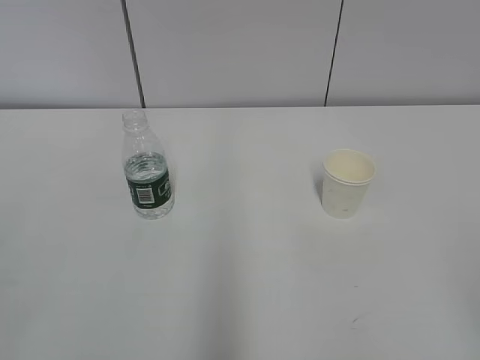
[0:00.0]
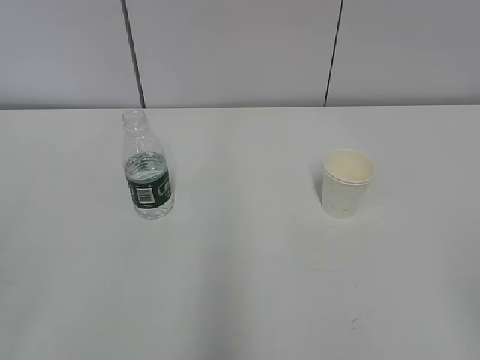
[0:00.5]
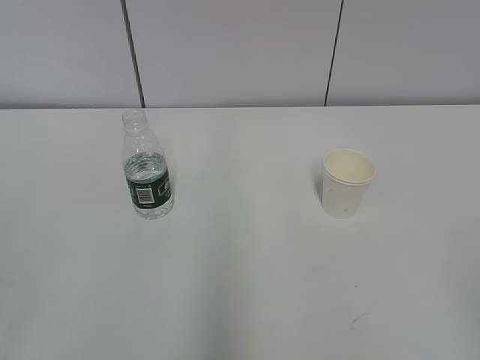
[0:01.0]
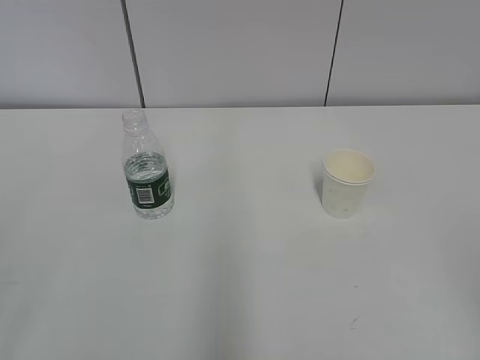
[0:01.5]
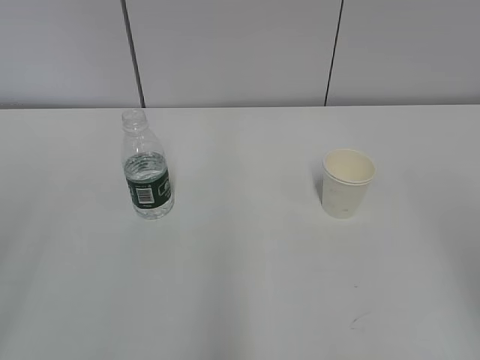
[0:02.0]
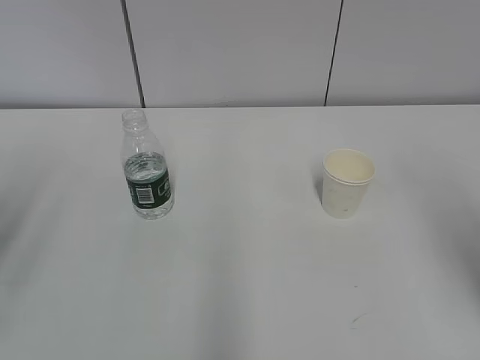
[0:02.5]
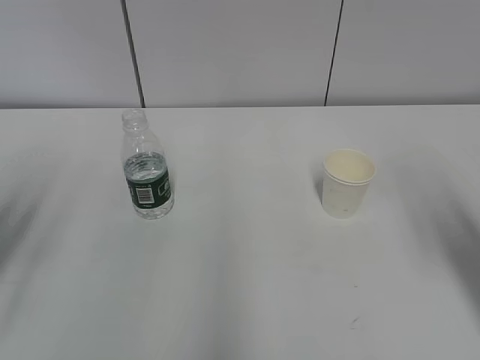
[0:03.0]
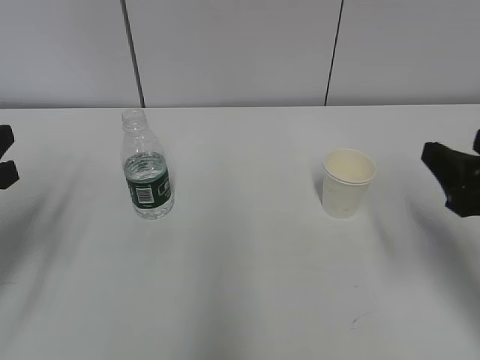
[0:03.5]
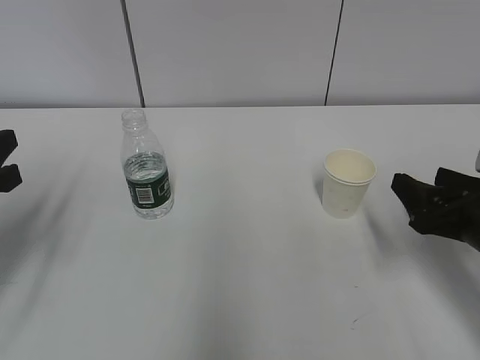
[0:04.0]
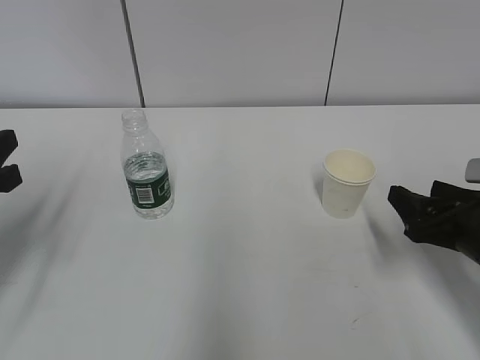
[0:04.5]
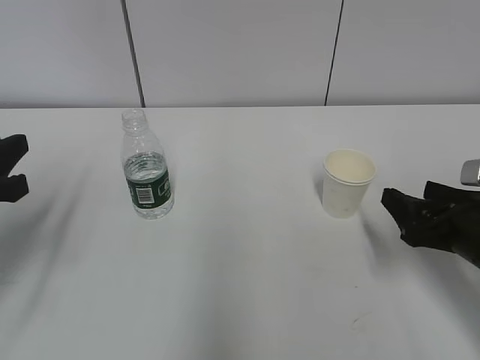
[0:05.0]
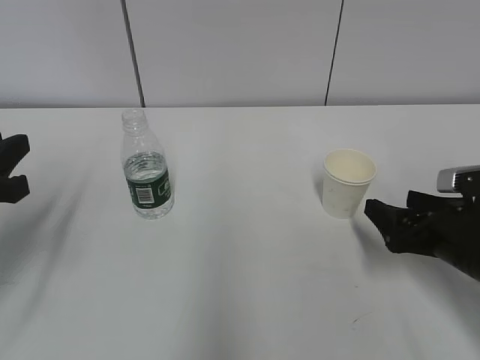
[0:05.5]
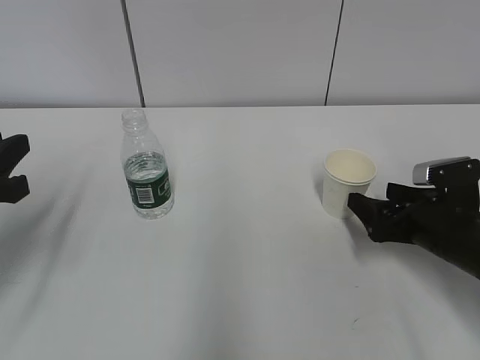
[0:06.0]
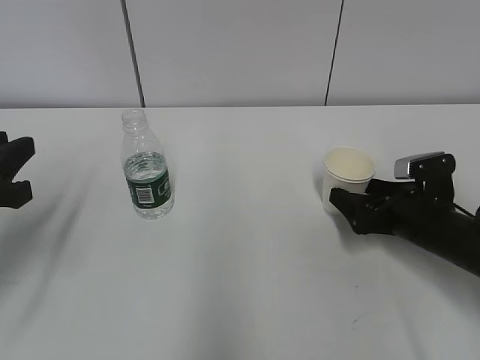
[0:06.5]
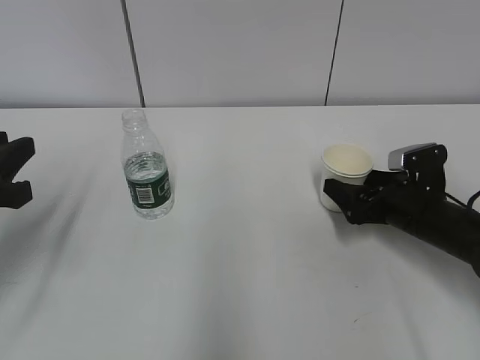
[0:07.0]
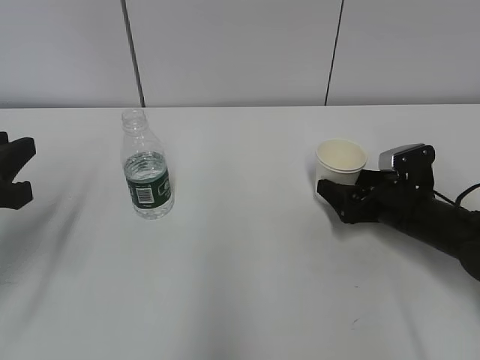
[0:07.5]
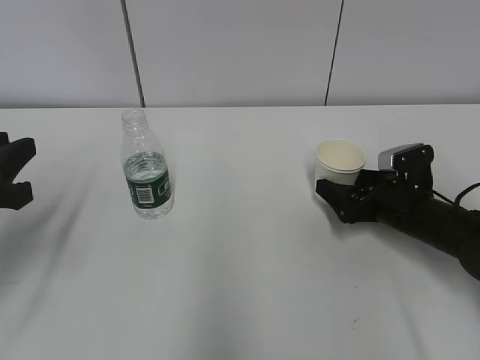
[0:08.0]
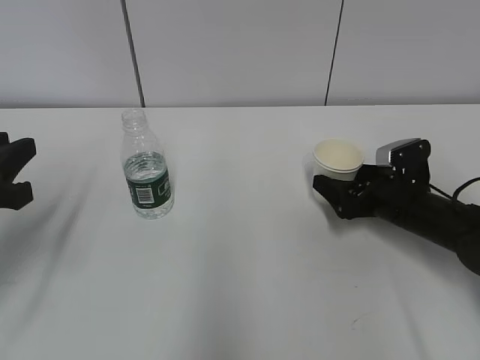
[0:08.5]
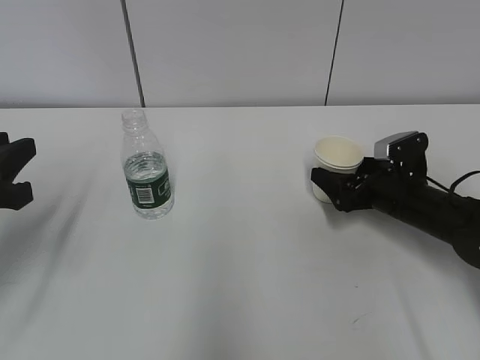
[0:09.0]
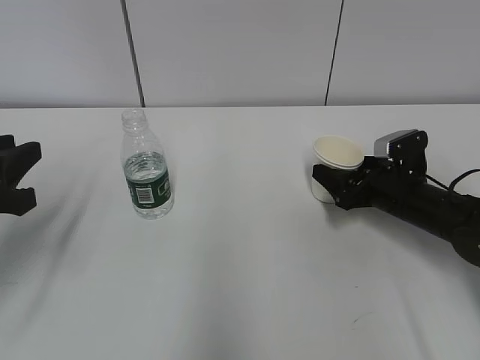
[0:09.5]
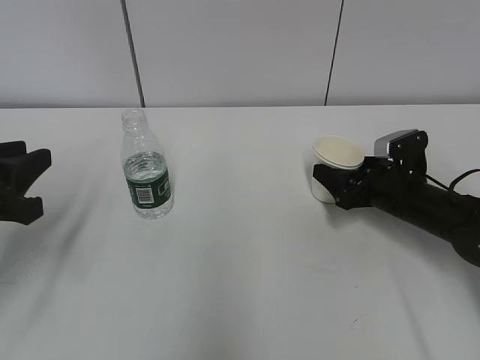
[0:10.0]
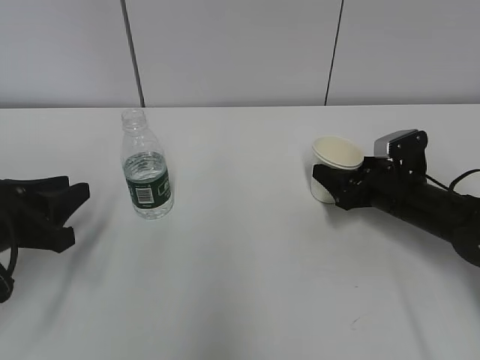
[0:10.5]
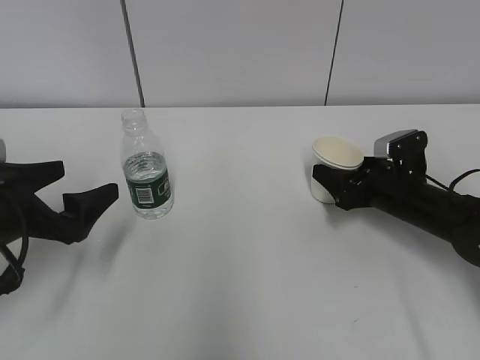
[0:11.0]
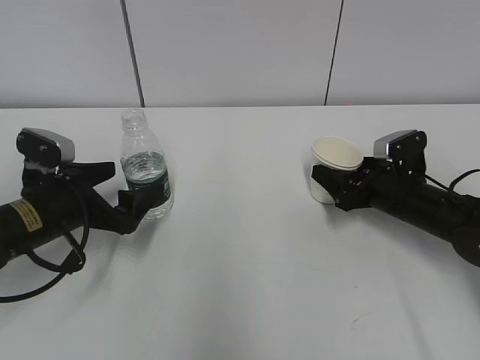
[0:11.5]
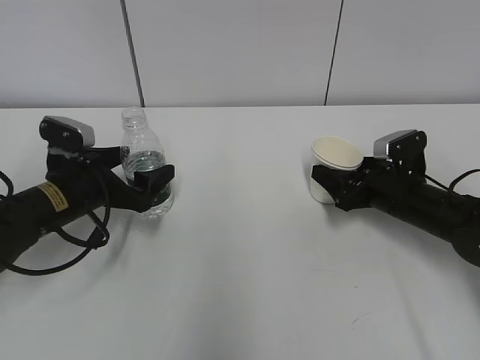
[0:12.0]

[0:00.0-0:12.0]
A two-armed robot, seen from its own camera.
Step, 0:00.0 to 0:10.5: Grab the paper cup with the right hand.
0:02.0 to 0:04.0: Both grippers travel together forward and downward, some 25 cm.
0:04.0 to 0:06.0: The right gripper heads downward and forward, covering approximately 10 cm, and opens its fingers.
0:06.0 to 0:08.0: The right gripper heads forward, covering approximately 5 cm.
0:08.0 to 0:10.0: The right gripper closes up.
0:10.0 to 0:12.0: The left gripper heads forward, downward and to the right, covering roughly 15 cm, and opens up.

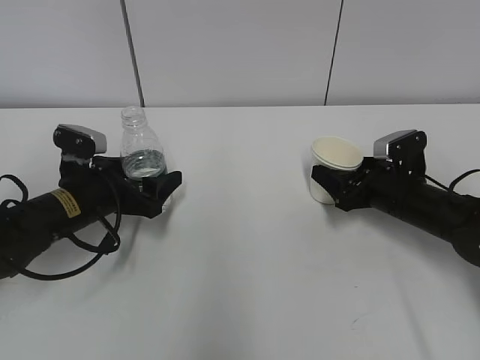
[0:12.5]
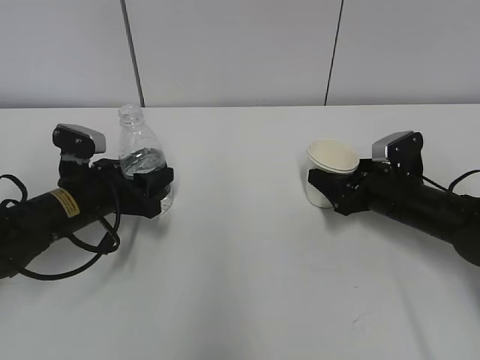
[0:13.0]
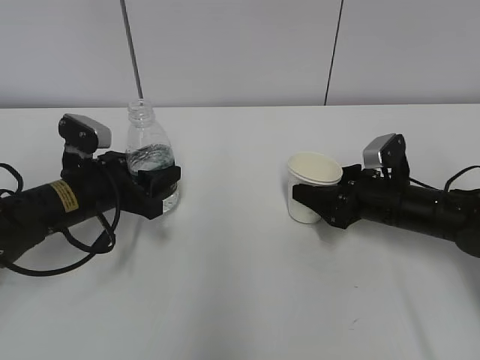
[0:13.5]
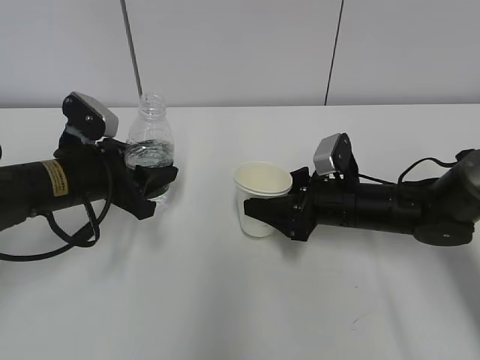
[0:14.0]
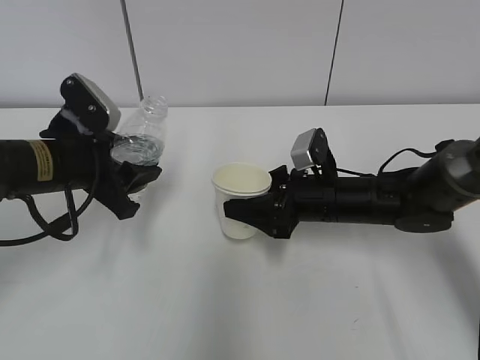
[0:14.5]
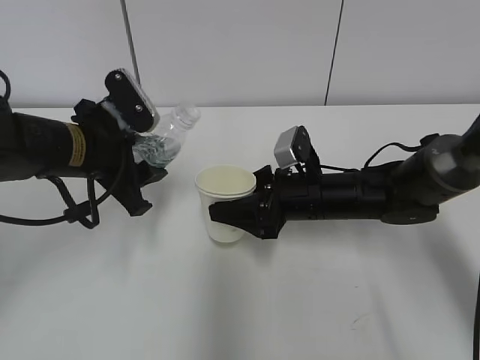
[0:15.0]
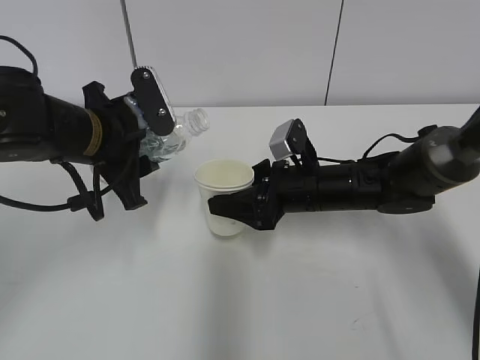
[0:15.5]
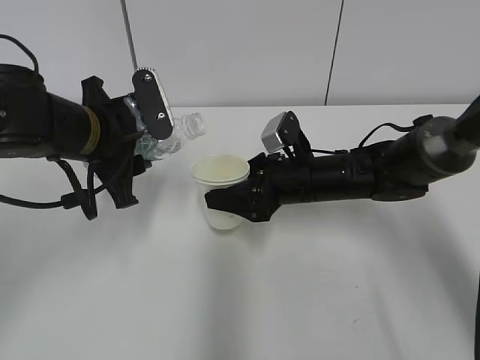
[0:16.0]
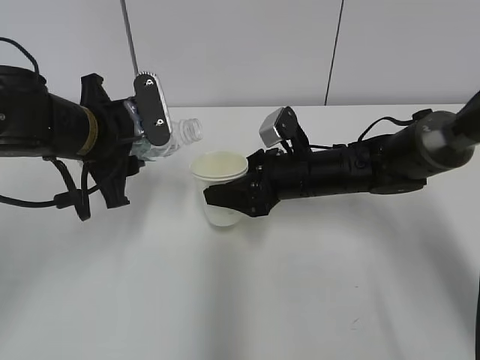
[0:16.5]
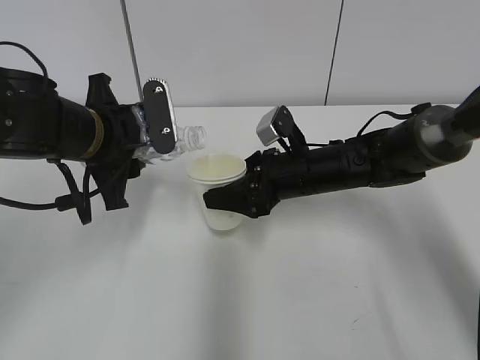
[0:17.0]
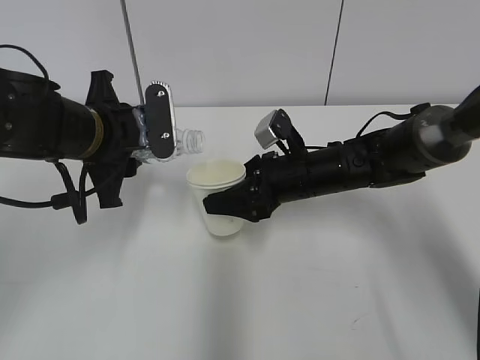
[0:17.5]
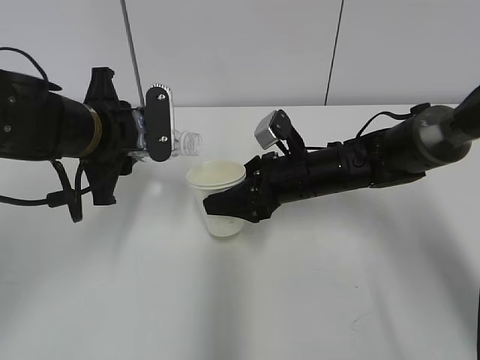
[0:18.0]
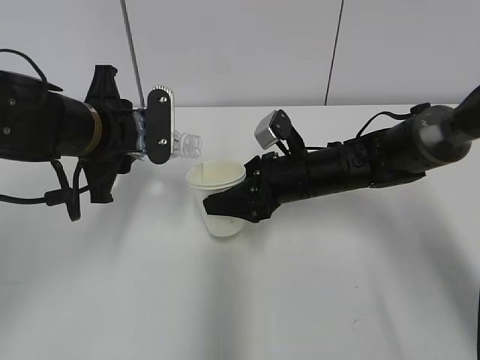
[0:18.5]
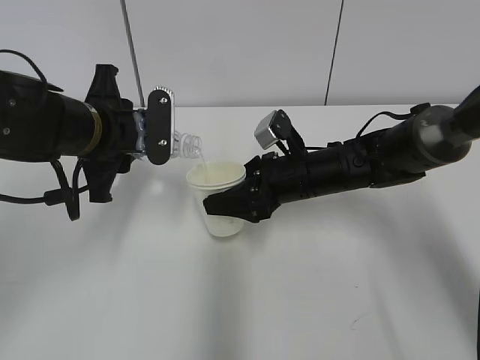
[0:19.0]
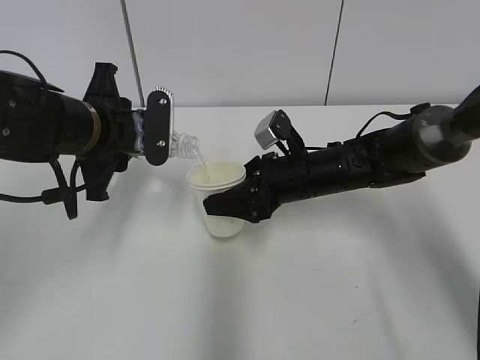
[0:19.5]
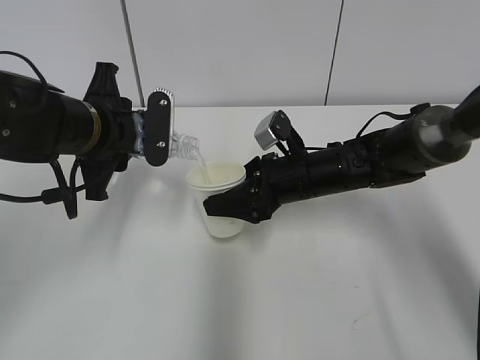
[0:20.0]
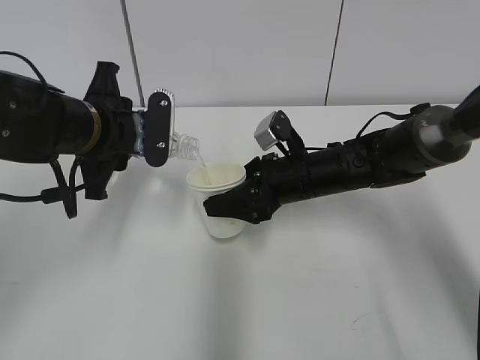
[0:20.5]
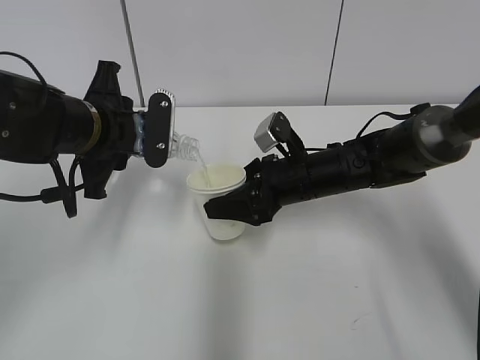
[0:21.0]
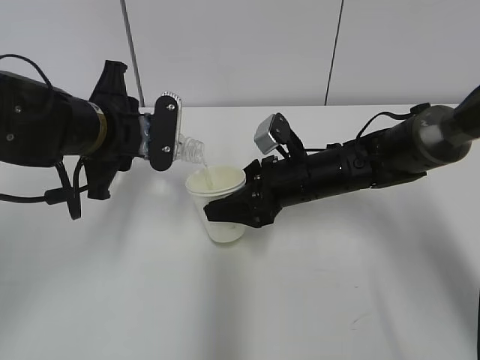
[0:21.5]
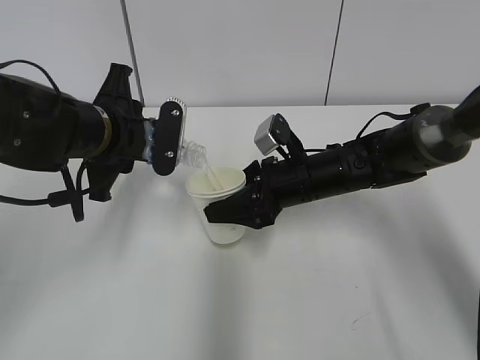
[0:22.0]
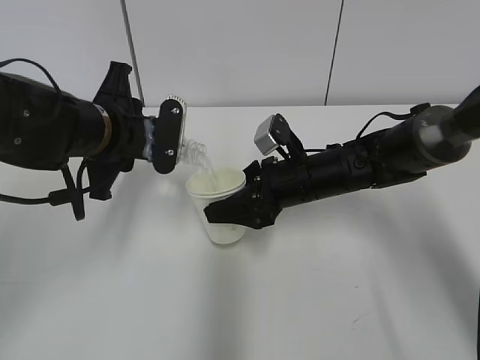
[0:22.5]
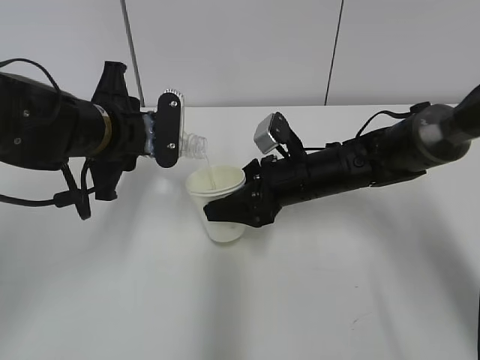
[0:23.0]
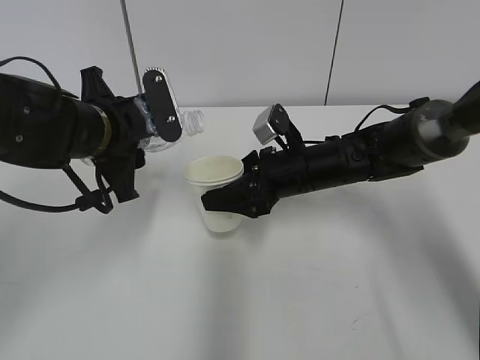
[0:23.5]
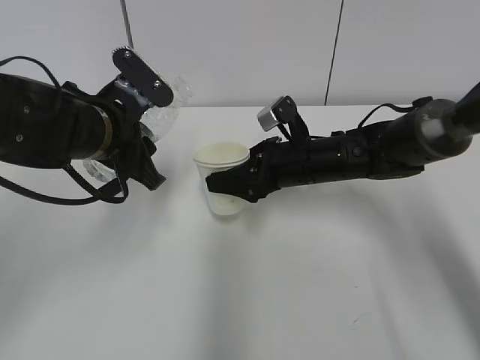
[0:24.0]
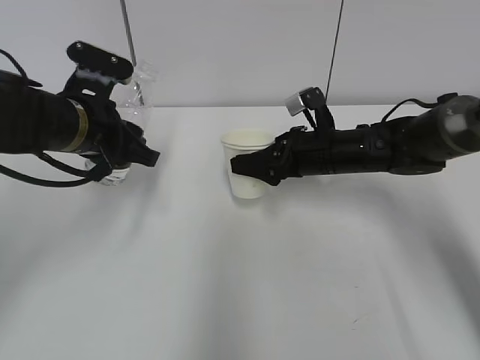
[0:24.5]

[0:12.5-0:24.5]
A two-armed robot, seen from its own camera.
Step, 0:12.5 to 0:15.0: Lift the paper cup with the right hand.
Step, 0:15.5 to 0:19.0: Fill water with the right hand.
Step, 0:15.5 to 0:19.0: Pour water with the left hand.
Step, 0:19.5 to 0:21.5: Collect water with the left hand.
0:12.5 to 0:14.5: The left gripper moves upward, roughly 10 cm, and closes; the right gripper is displaced to the left by approximately 10 cm.
0:14.5 to 0:16.5: The left gripper moves approximately 5 cm.
0:16.5 to 0:18.5: The grippers make only small movements.
0:18.5 to 0:20.5: Neither gripper changes place.
0:20.5 to 0:22.5: There are only small adjustments of the grippers.
0:22.5 to 0:24.5: The right gripper ends up approximately 5 cm from where it was.

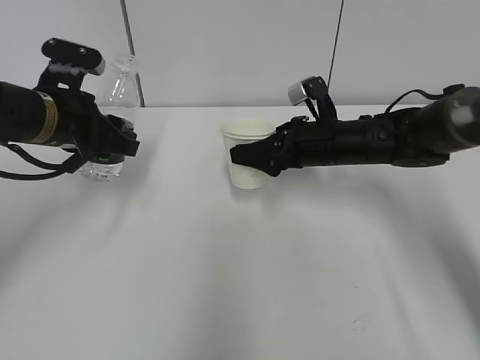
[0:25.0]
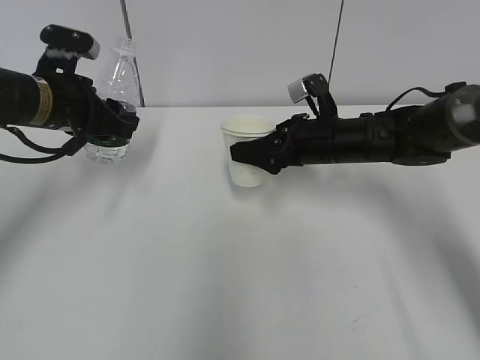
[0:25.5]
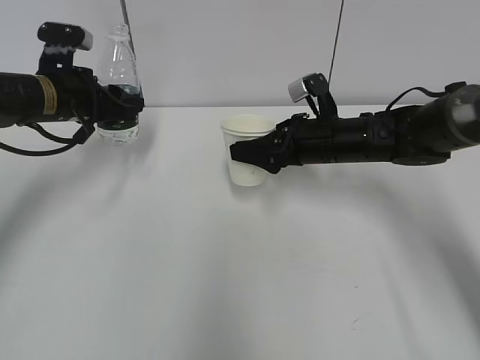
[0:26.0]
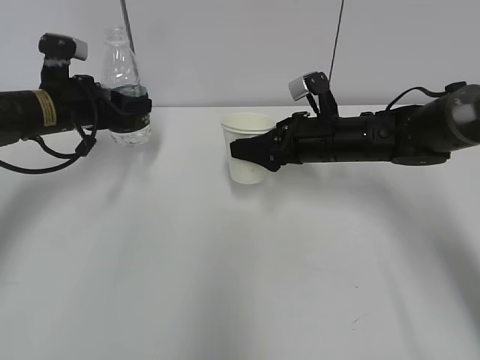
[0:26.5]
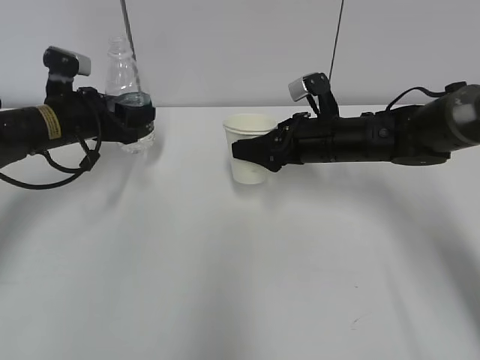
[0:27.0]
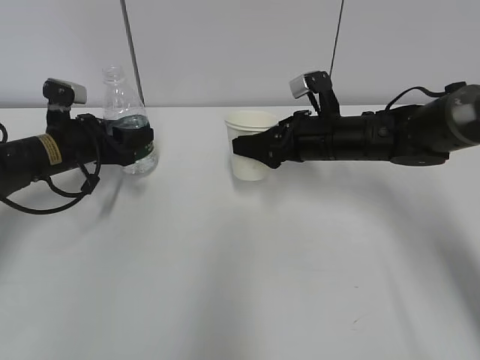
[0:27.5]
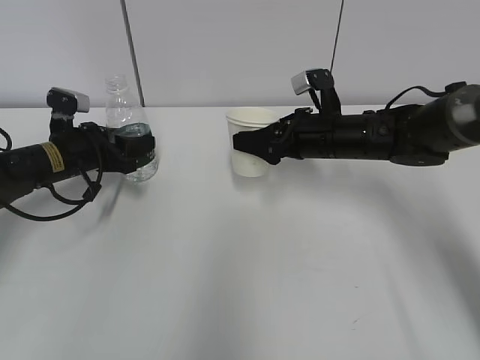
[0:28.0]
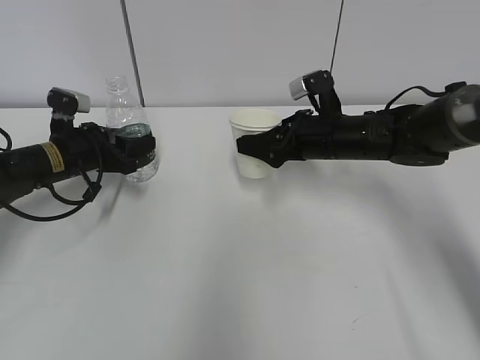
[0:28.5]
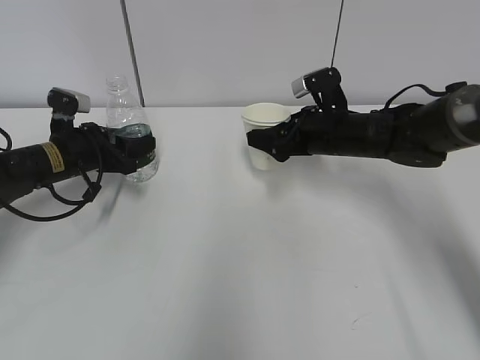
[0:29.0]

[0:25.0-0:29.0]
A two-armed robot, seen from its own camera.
Step, 0:27.5 to 0:29.0: Place the water bottle with the left hand.
0:25.0 to 0:27.0: The left gripper heads forward and downward, covering approximately 10 cm.
0:27.0 to 0:29.0: The left gripper shifts approximately 5 cm downward.
